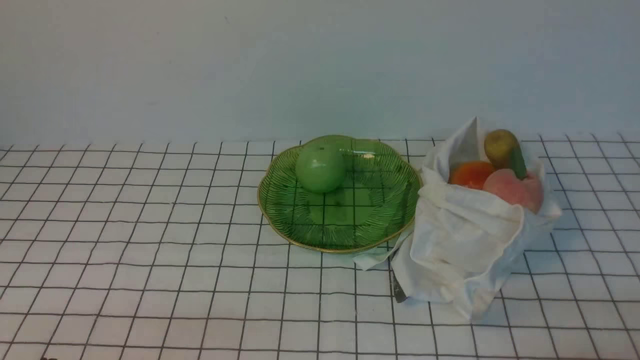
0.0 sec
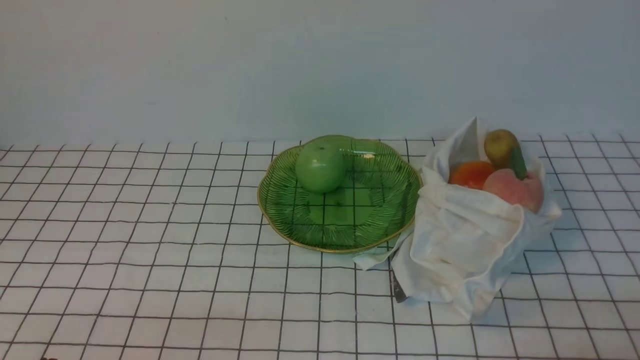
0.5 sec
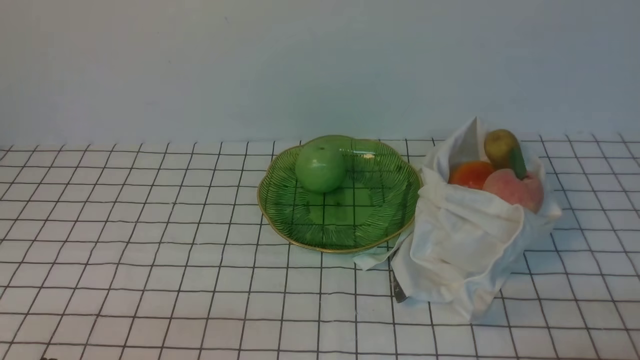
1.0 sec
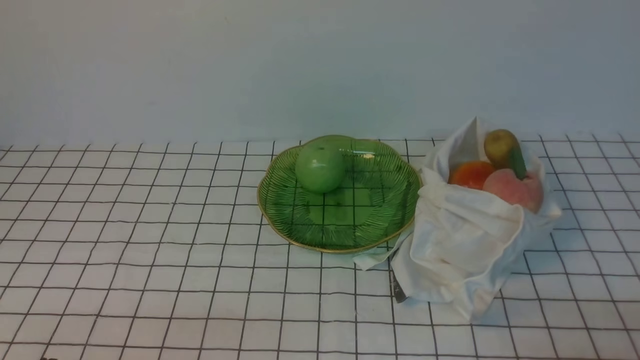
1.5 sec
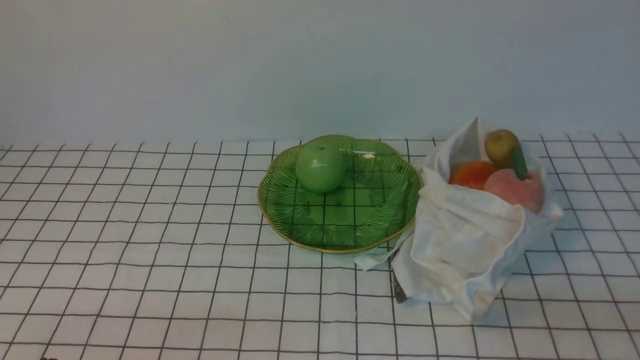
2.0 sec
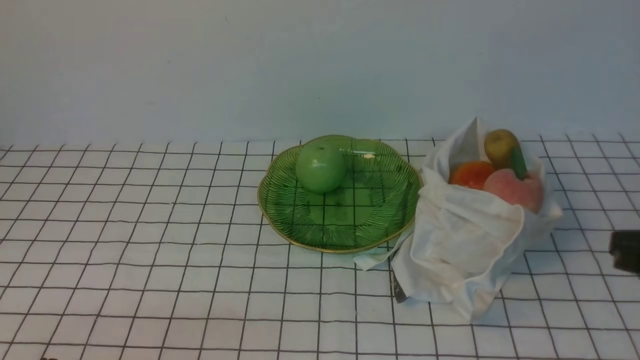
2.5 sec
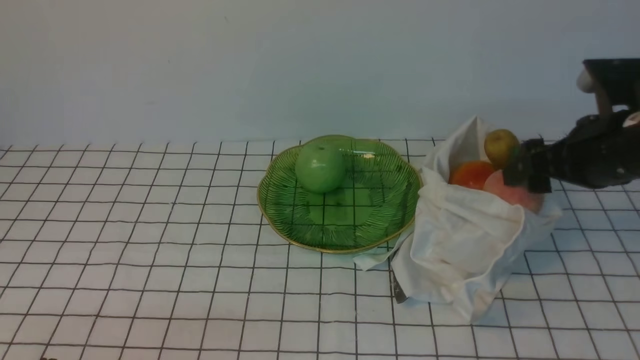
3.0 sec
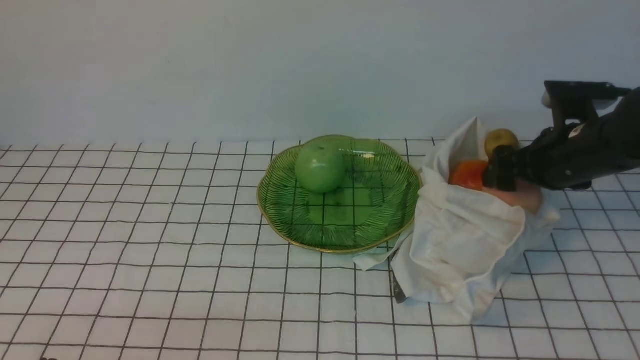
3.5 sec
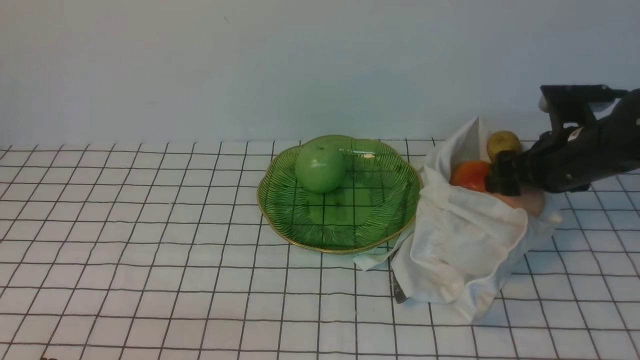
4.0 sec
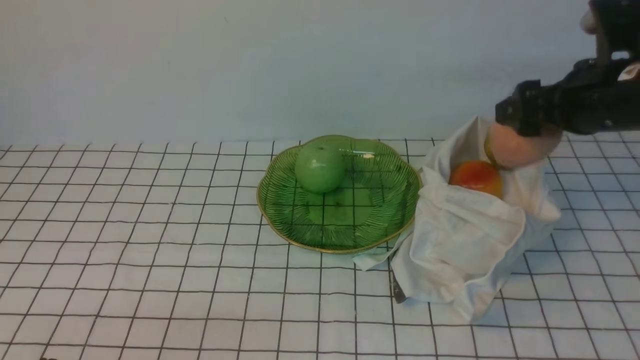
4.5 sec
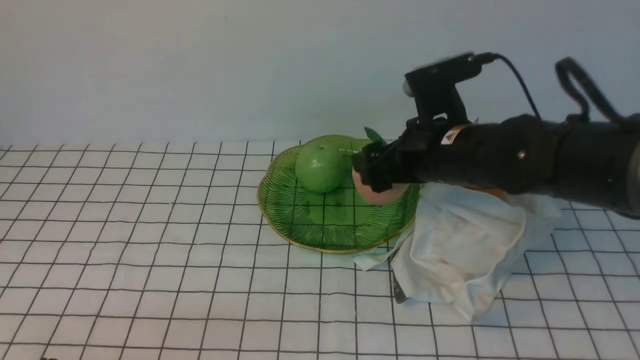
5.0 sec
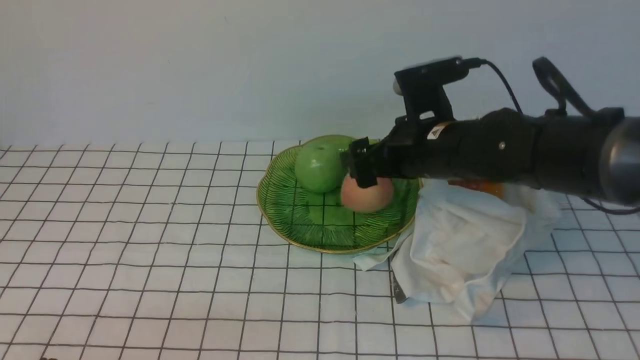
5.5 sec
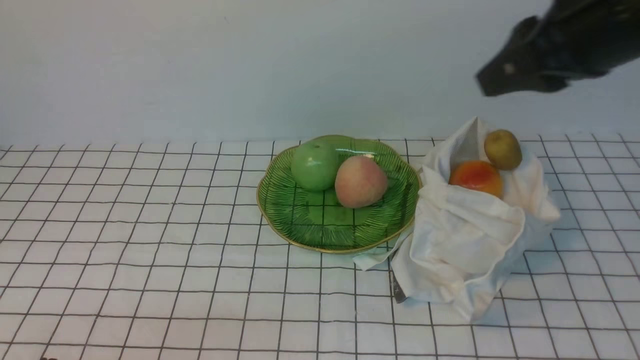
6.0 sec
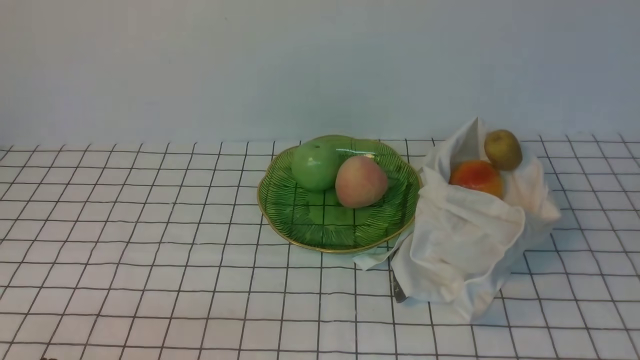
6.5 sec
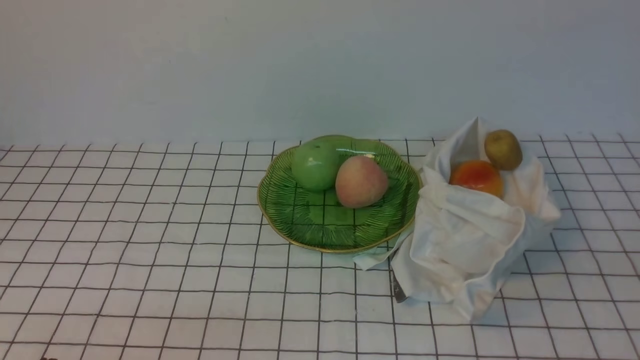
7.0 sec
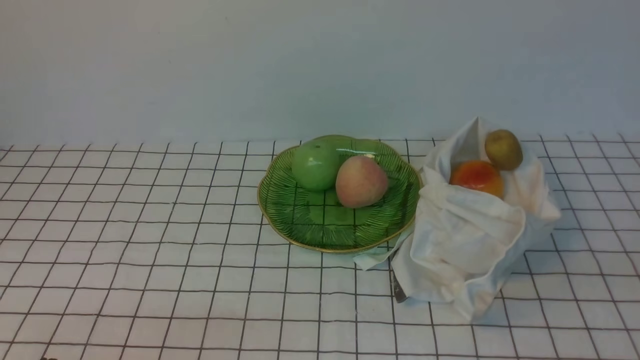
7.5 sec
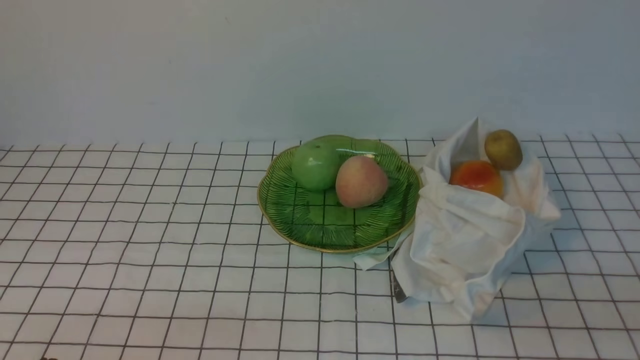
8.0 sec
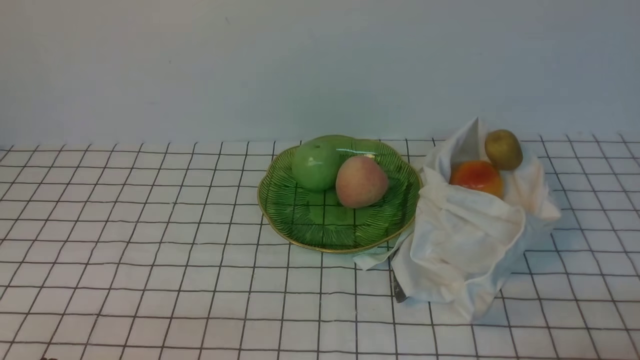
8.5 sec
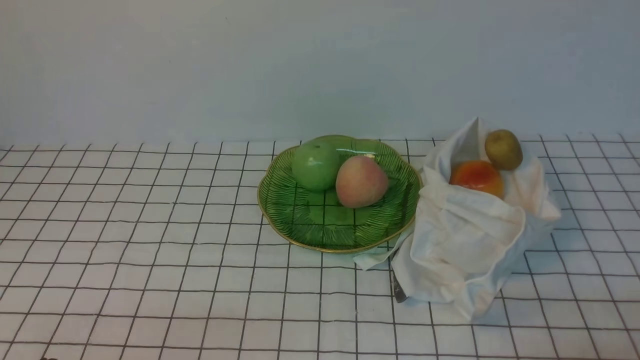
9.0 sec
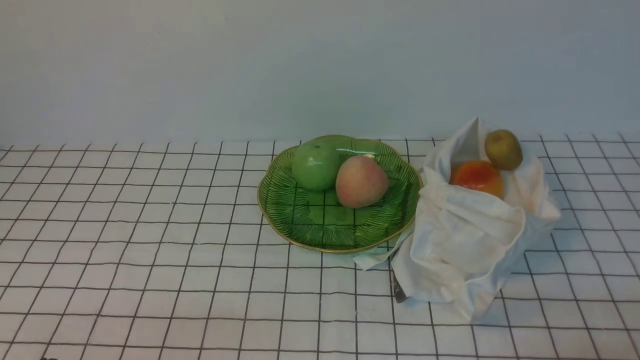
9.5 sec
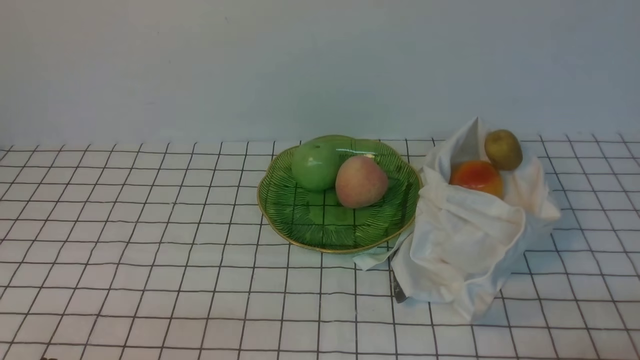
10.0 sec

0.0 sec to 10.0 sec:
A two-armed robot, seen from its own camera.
Step, 0.0 sec to 4.0 sec: use the right arm to grab a peach from the bag.
Step, 4.5 sec to 5.0 sec: use the right arm to put the peach into the empty plate on the left.
2.0 sec to 4.0 sec: The right gripper moves forward, roughly 30 cm, and opens.
4.0 sec to 6.0 sec: The right gripper moves up and down over roughly 20 cm, changing direction 2 times, and closes up.
6.0 sec to 8.0 sec: The right gripper shifts about 30 cm downward, backward and to the right.

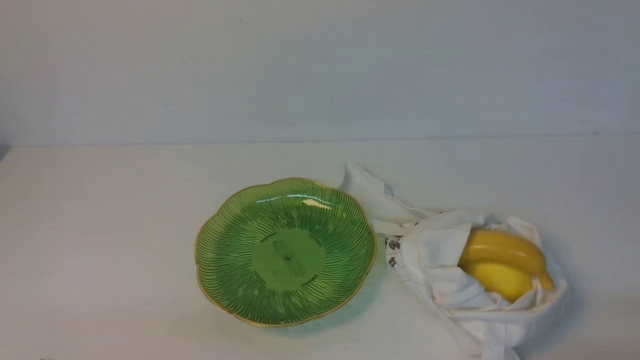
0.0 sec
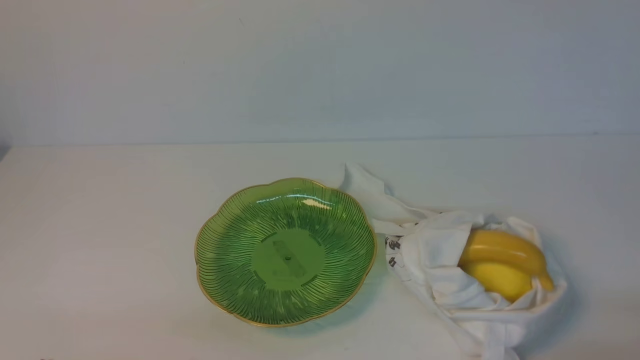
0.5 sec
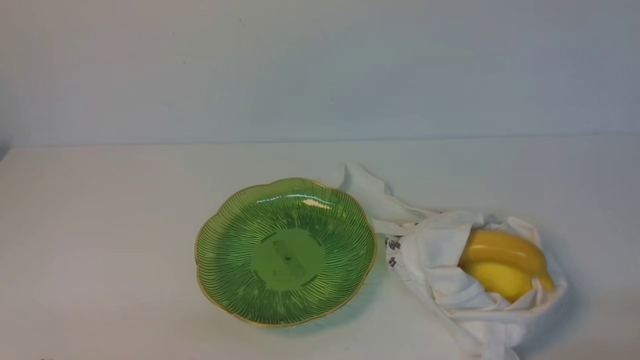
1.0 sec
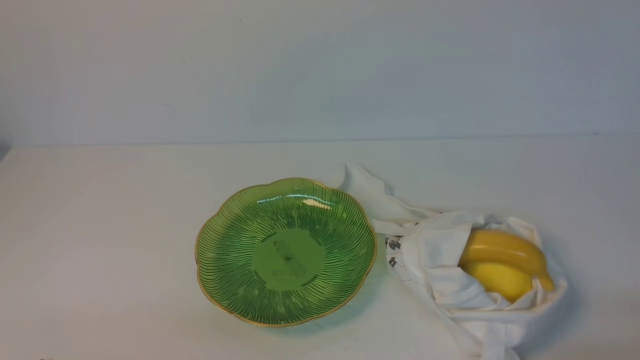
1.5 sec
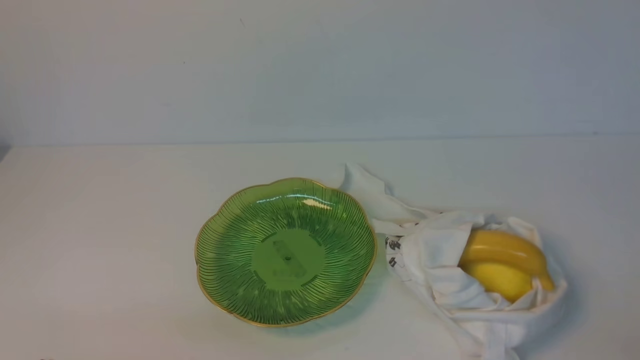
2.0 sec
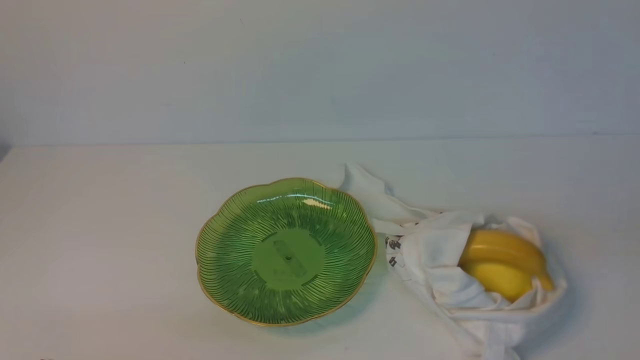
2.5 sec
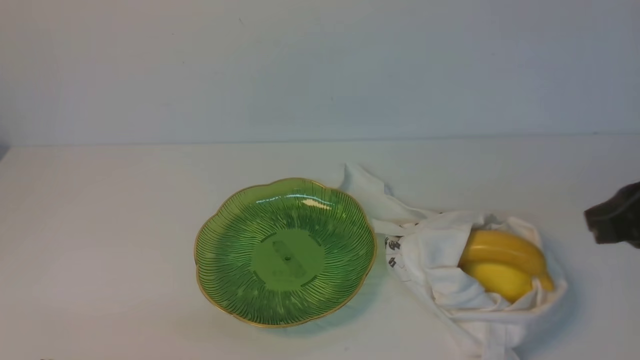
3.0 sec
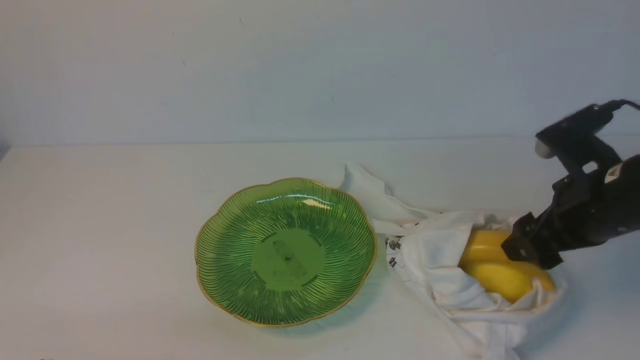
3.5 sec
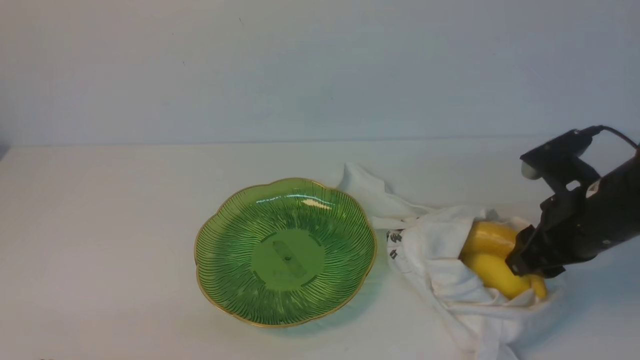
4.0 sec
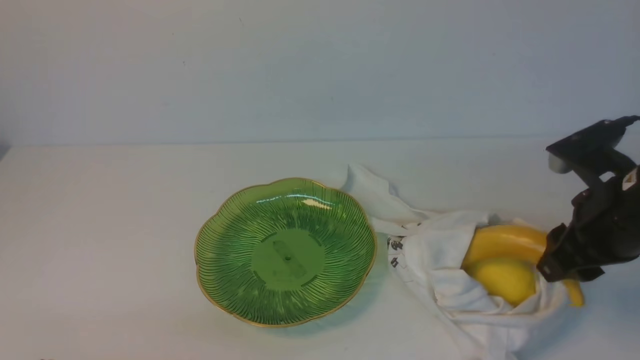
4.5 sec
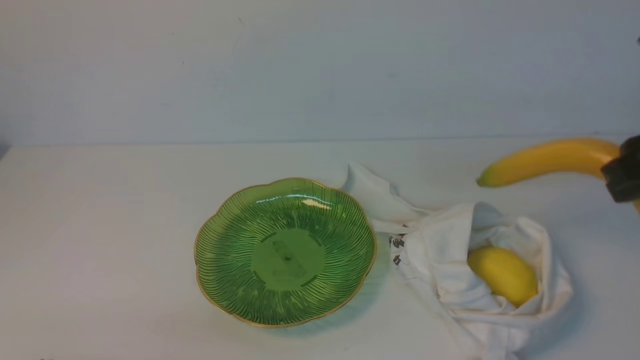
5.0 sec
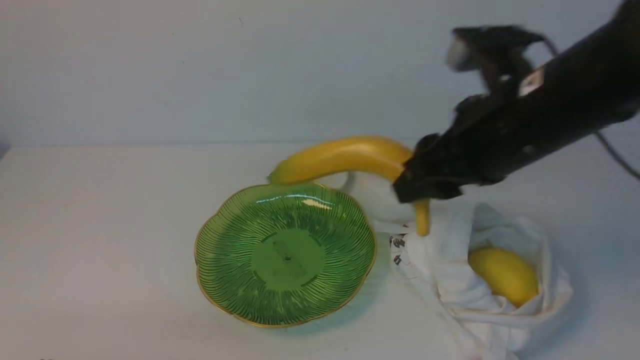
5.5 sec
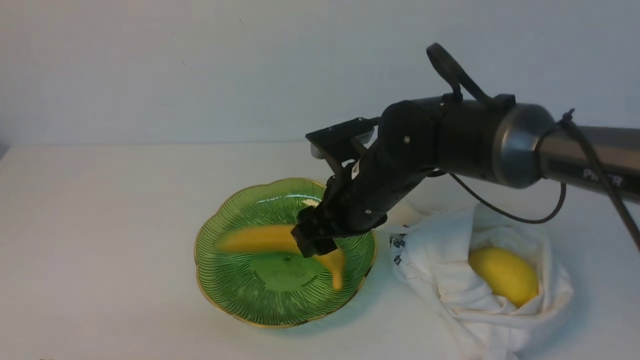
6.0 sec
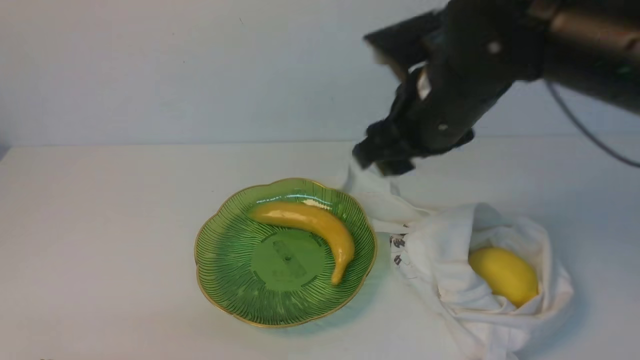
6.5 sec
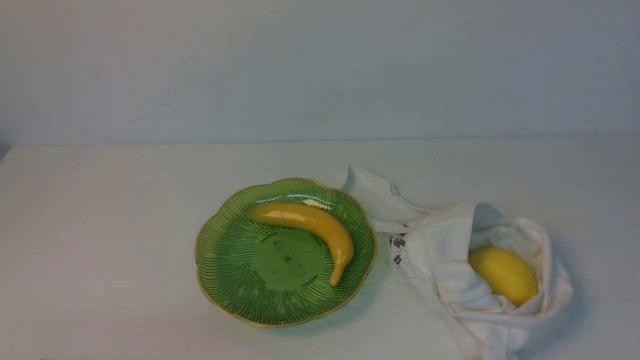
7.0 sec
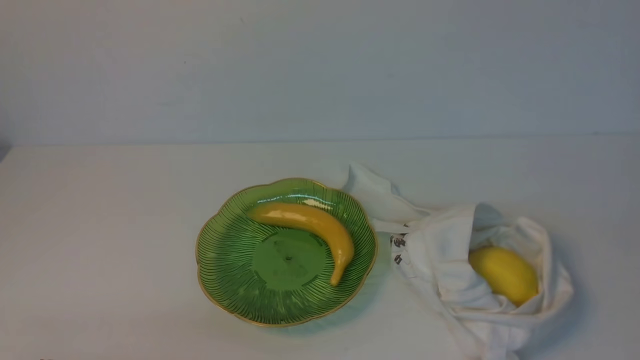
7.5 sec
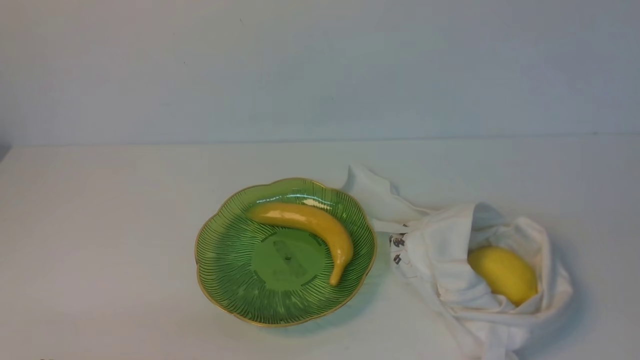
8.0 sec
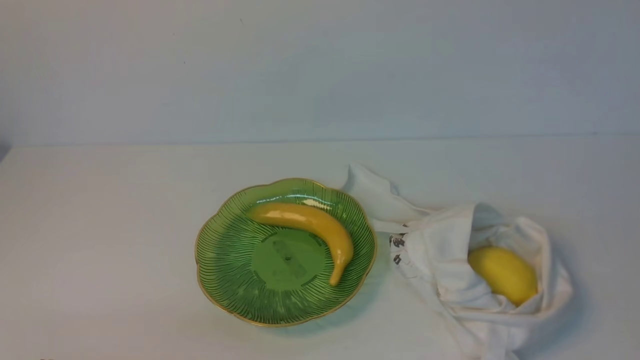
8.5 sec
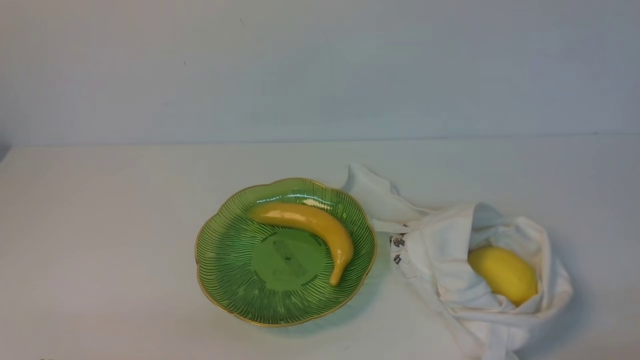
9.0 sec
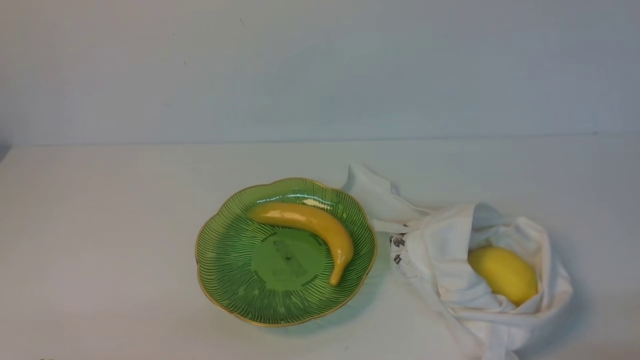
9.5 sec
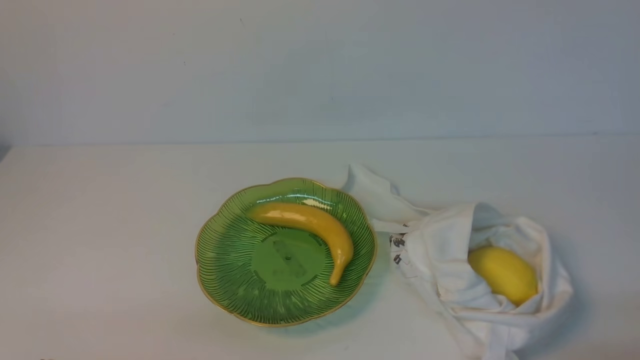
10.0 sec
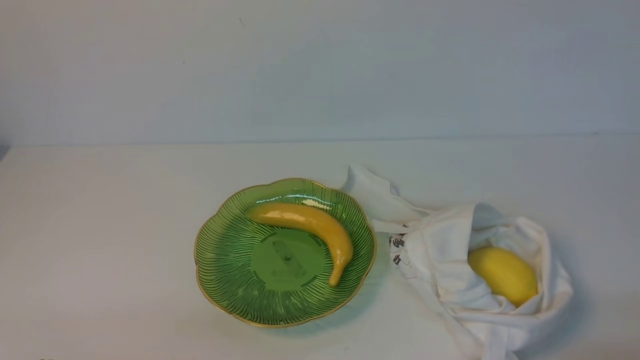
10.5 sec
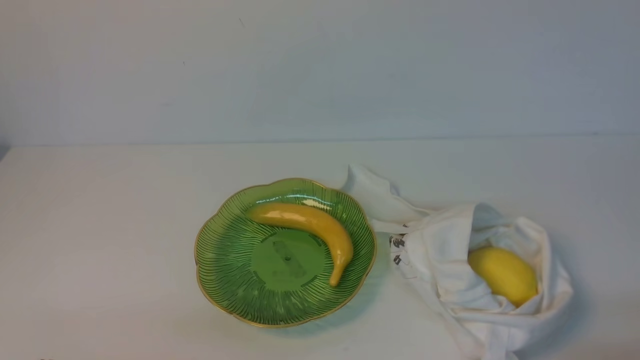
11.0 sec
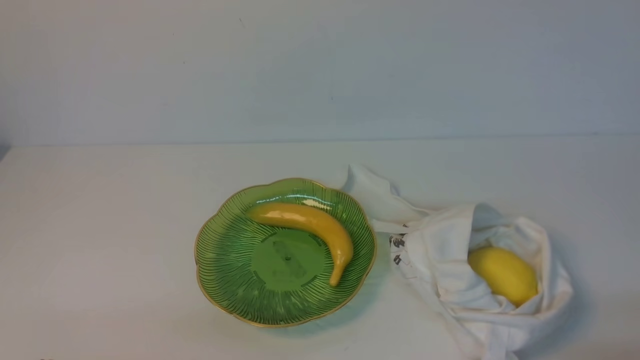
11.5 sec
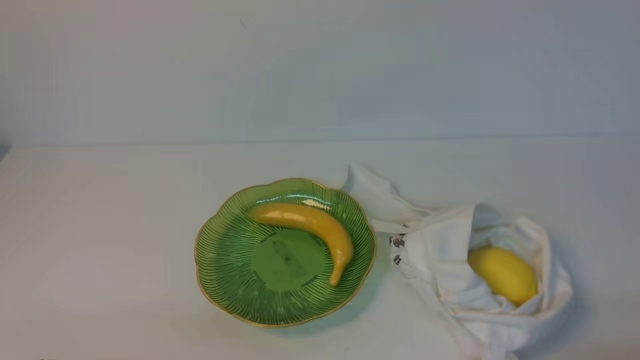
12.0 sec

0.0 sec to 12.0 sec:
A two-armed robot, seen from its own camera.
Step, 0.0 sec to 4.5 sec: use the right arm to grab a banana from the bag.
Step, 5.0 sec to 6.0 sec: use the right arm to put the banana into the empty plate on the right.
2.0 sec to 4.0 sec: The right gripper moves forward, roughly 25 cm, and opens.
4.0 sec to 6.0 sec: The right gripper shifts about 20 cm to the left.
6.0 sec to 8.0 sec: The right gripper shifts roughly 40 cm backward and to the right, and closes up.
10.0 sec to 12.0 sec: The two grippers keep their place.
